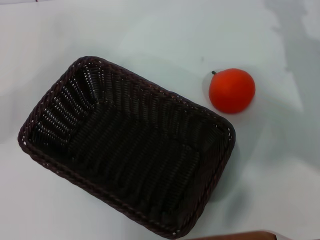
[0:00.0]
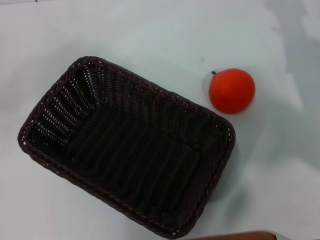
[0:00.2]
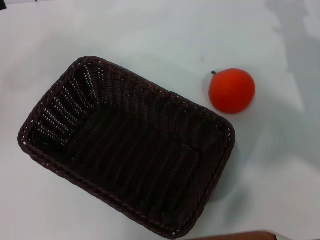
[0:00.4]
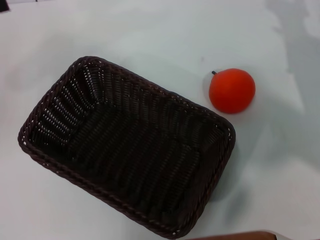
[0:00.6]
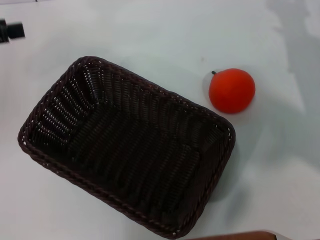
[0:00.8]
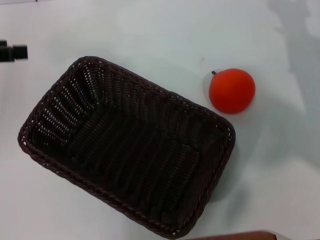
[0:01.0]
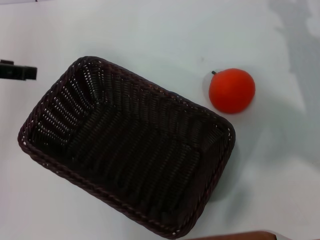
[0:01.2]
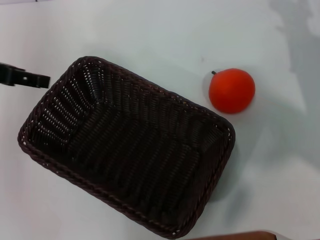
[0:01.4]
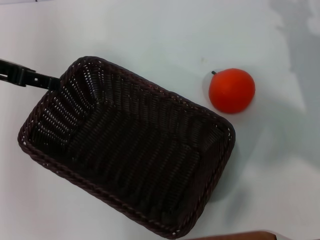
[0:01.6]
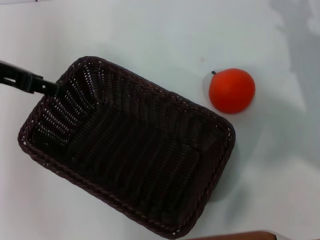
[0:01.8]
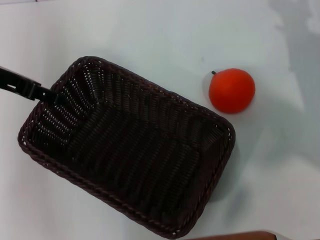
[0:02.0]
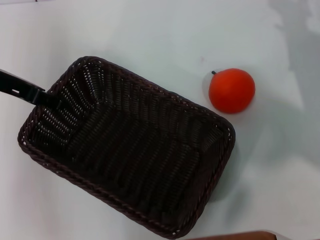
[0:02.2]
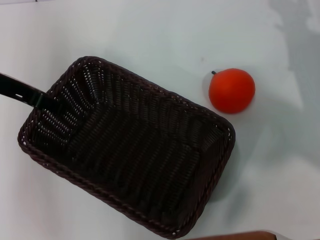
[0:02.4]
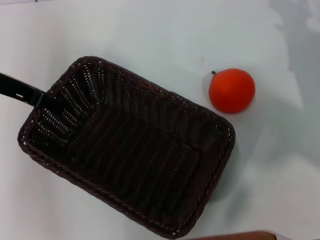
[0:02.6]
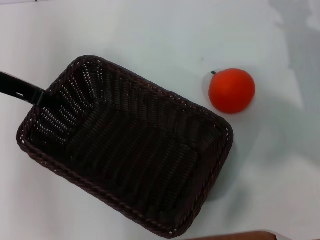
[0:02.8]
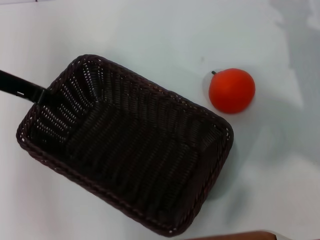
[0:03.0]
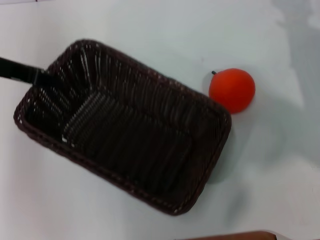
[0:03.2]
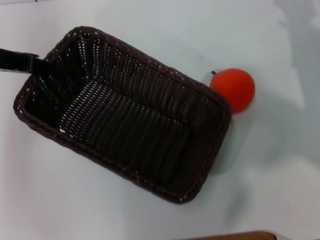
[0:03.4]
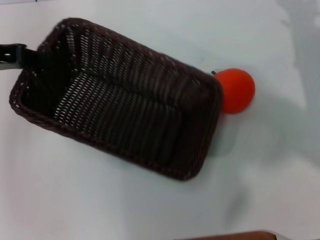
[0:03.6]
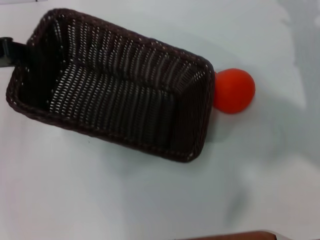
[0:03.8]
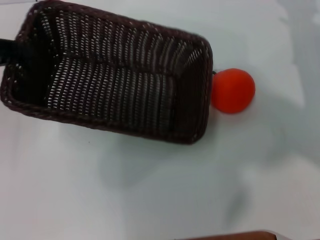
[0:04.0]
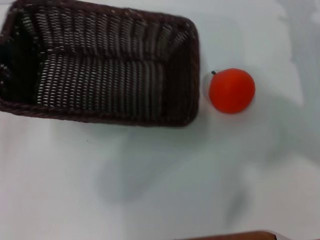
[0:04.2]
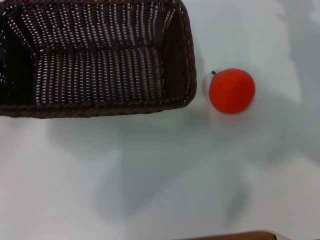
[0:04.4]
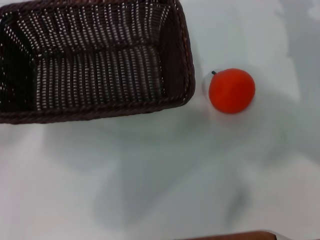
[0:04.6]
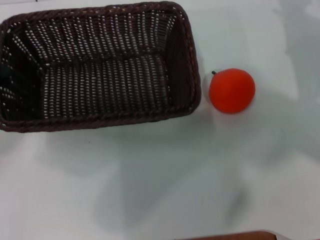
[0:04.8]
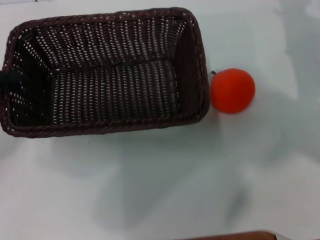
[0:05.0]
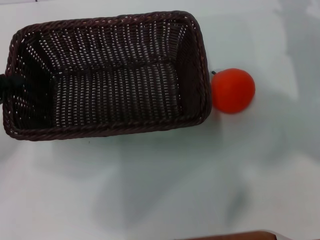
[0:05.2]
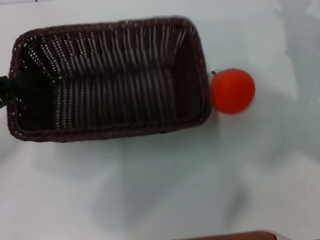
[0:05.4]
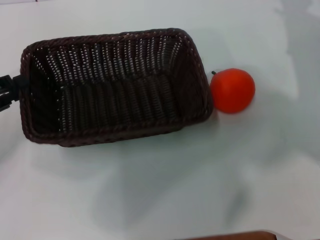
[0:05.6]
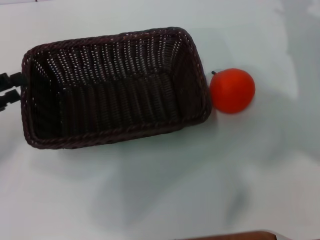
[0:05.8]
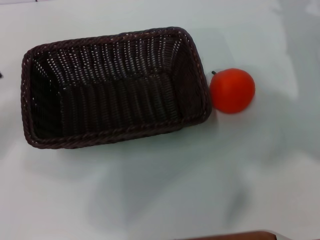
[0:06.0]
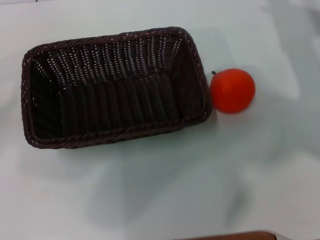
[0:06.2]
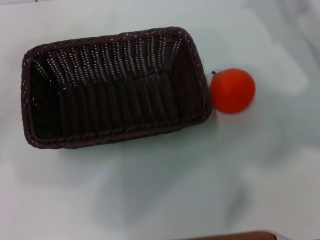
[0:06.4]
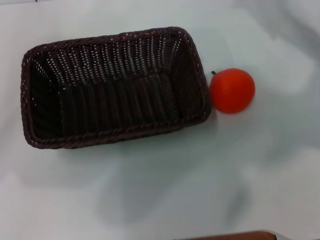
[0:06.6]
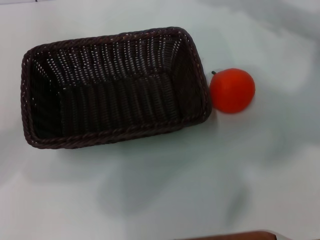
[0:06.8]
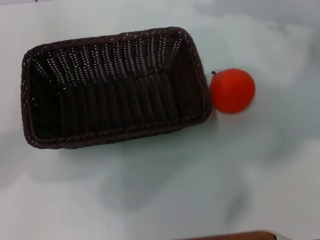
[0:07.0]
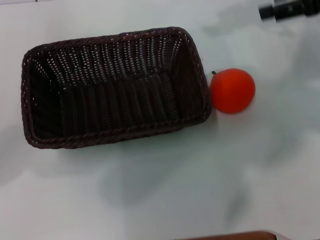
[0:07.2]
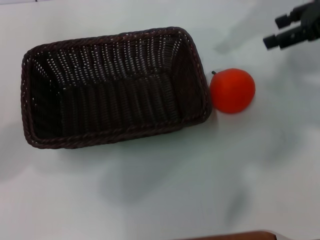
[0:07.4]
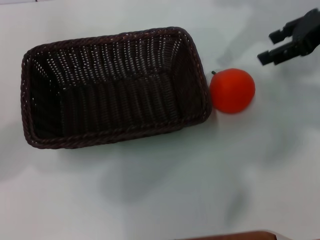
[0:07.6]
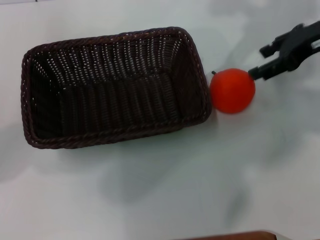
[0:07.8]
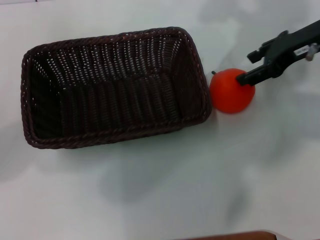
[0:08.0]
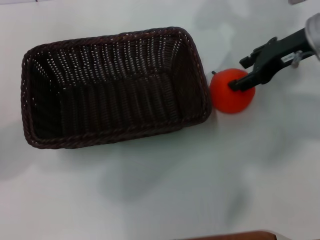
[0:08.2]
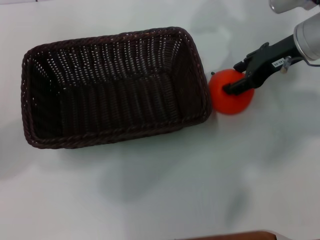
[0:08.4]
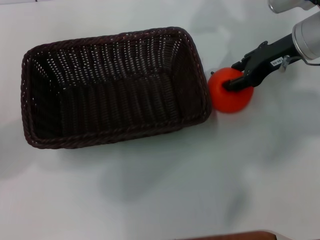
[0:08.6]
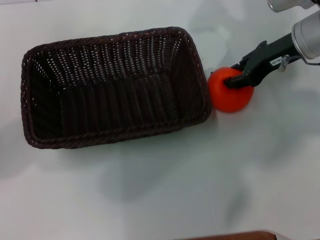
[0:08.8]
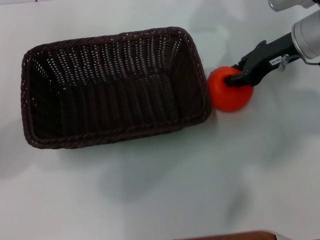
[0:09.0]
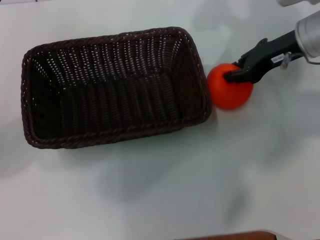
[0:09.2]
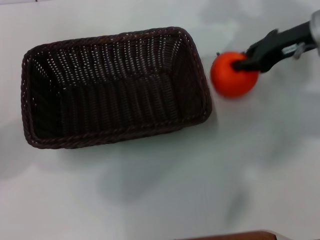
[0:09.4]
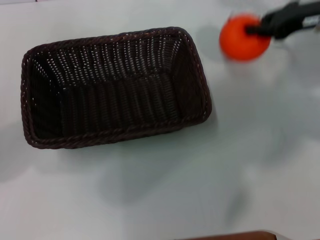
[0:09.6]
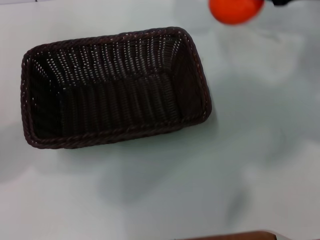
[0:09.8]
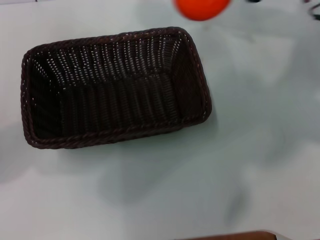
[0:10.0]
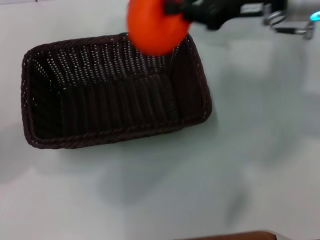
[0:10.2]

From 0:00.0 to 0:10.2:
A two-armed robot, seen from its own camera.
Task of the whole recording: the left gripper pick up the black basket and place it horizontally in the middle of the table, the right gripper pick up the orange and place it into the black basket.
Step, from 0:00.0 to 0:03.4: Pick up the dark basket with the left gripper.
Step, from 0:03.6 to 0:05.8: Place the dark basket in the center of view with the left gripper.
Step, from 0:06.0 to 0:09.4: Pick up the orange with the right gripper.
From 0:00.0 to 0:01.4: The left gripper moves to the right, approximately 5 cm.
From 0:01.4 to 0:03.0: The left gripper closes up.
From 0:03.0 to 0:04.4: The left gripper moves to the left and backward, roughly 15 cm.
From 0:04.4 to 0:05.8: The left gripper changes place by about 5 cm, and opens.
From 0:05.8 to 0:07.2: The left gripper ends up some 5 cm from where it was, while the right gripper goes some 15 cm upward.
From 0:07.2 to 0:08.8: The right gripper shifts about 10 cm downward and to the left.
From 0:08.8 to 0:10.2: The right gripper travels to the right and back again, approximately 5 cm each way, and closes.

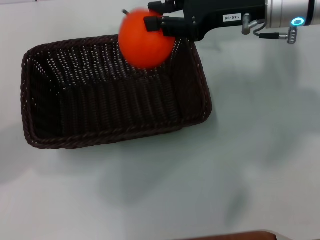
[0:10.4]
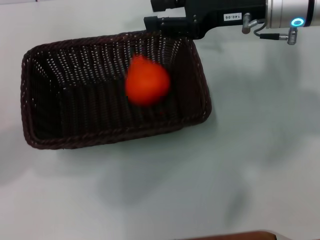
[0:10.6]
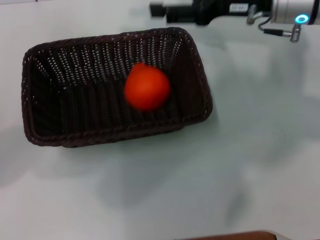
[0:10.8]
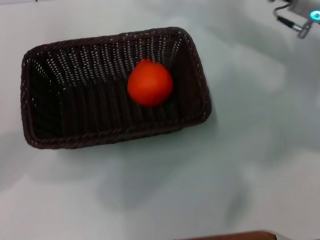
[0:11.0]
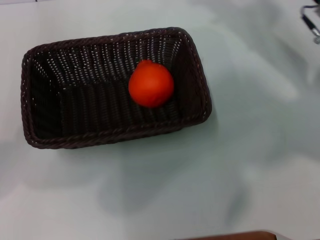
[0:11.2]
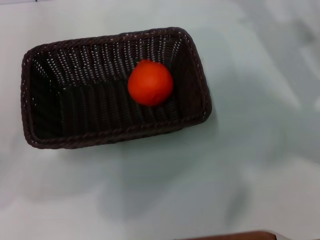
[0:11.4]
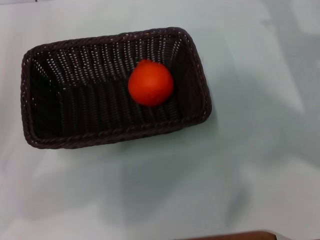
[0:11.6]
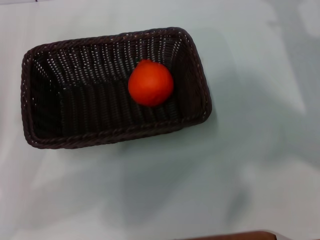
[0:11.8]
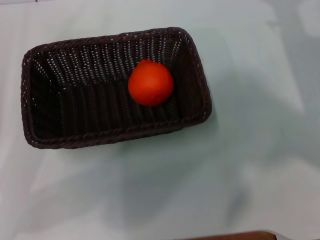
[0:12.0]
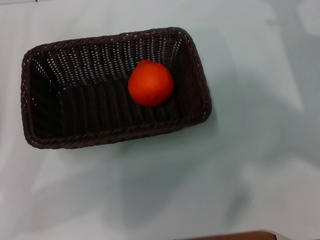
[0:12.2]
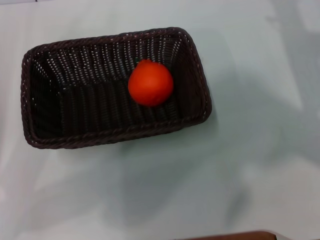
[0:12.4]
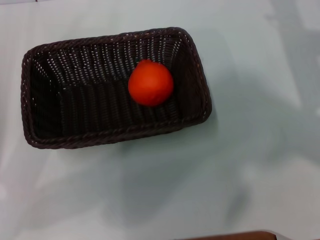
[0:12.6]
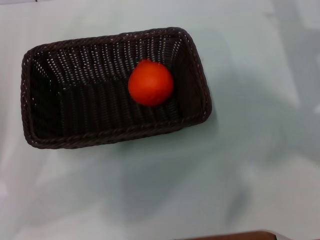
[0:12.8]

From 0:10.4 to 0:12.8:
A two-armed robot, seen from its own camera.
Task of the whole recording: the left gripper pick up the black basket and place it horizontally in the middle of the table, the right gripper pick up the orange and place it into the black basket.
From 0:10.4 to 0:11.6: The left gripper shifts by approximately 5 cm; the right gripper goes about 15 cm to the right, downward and backward, and opens its fingers.

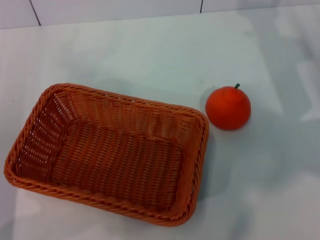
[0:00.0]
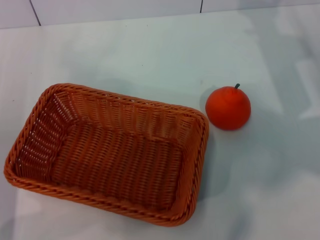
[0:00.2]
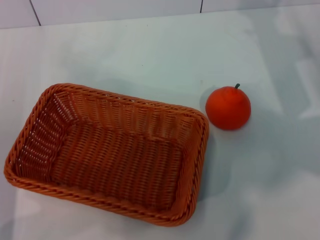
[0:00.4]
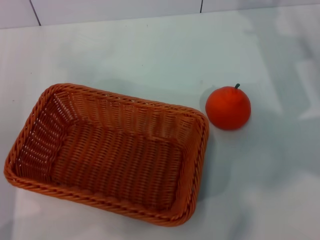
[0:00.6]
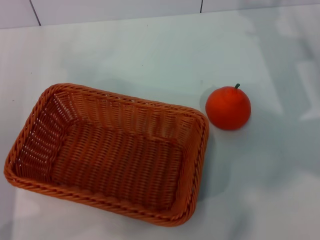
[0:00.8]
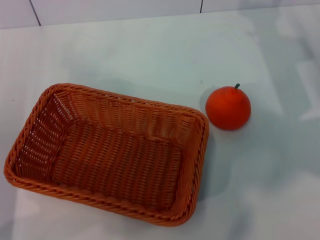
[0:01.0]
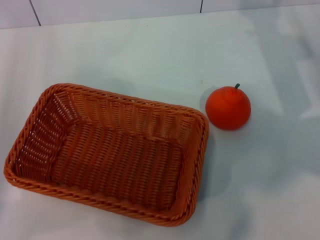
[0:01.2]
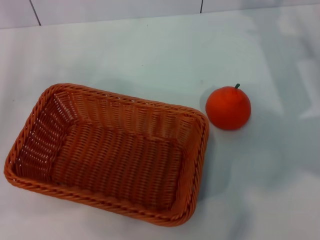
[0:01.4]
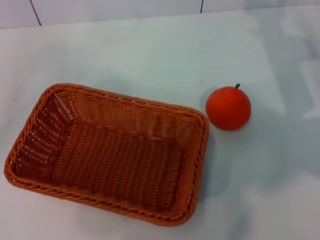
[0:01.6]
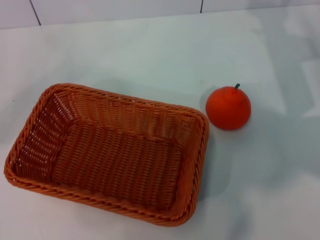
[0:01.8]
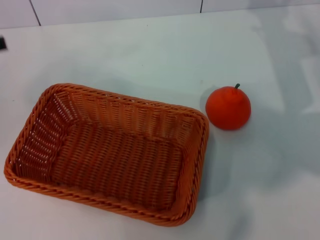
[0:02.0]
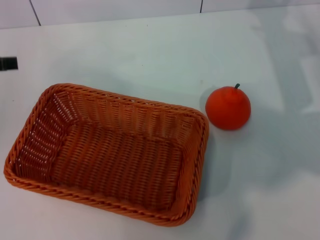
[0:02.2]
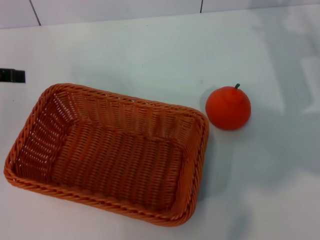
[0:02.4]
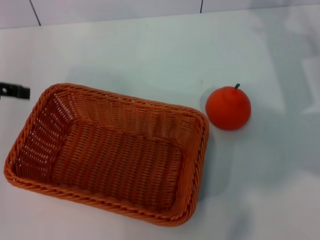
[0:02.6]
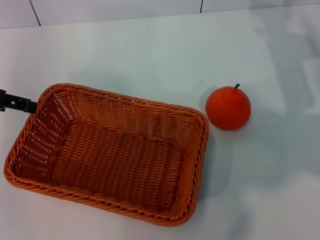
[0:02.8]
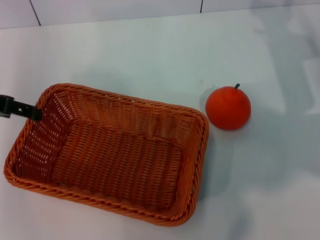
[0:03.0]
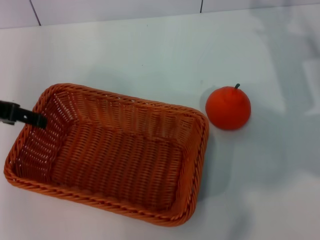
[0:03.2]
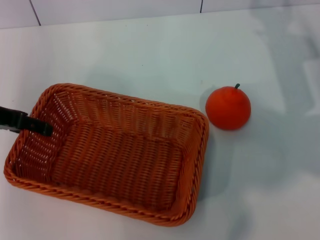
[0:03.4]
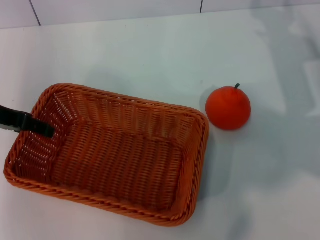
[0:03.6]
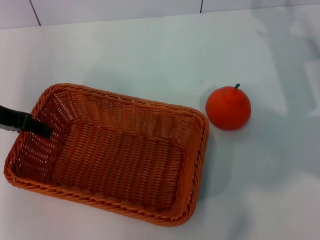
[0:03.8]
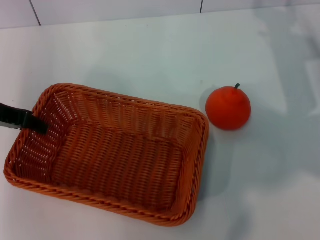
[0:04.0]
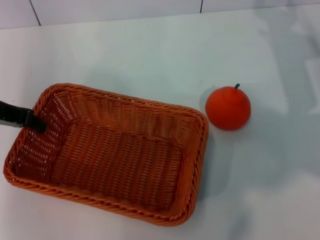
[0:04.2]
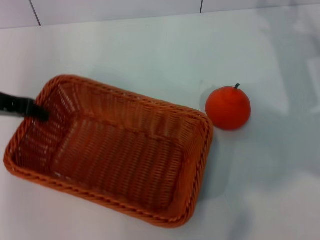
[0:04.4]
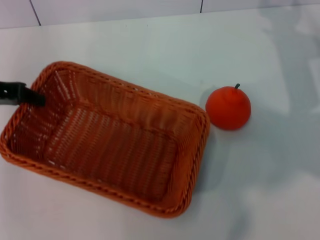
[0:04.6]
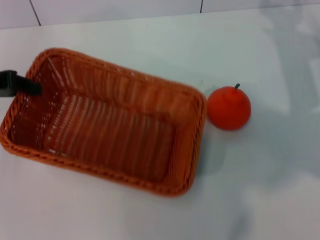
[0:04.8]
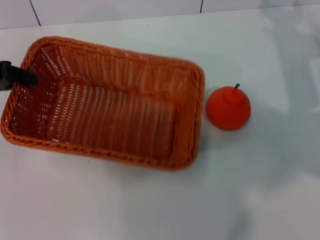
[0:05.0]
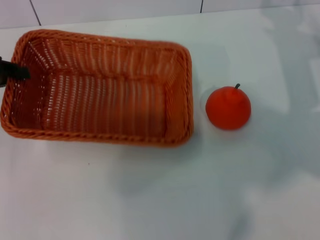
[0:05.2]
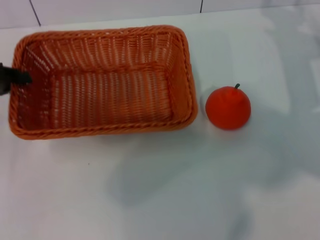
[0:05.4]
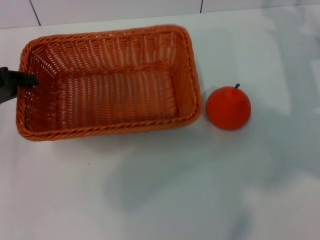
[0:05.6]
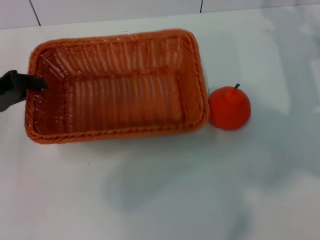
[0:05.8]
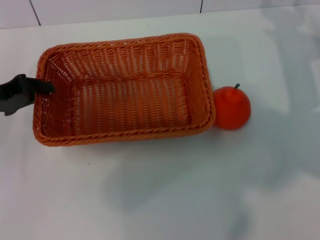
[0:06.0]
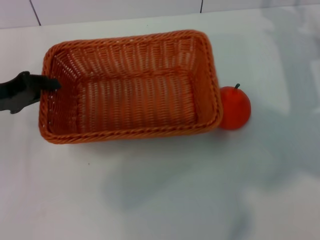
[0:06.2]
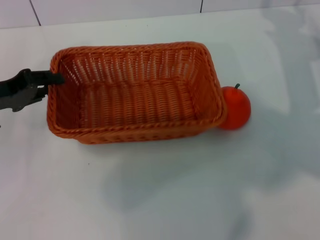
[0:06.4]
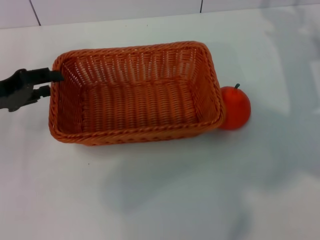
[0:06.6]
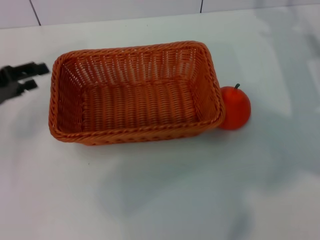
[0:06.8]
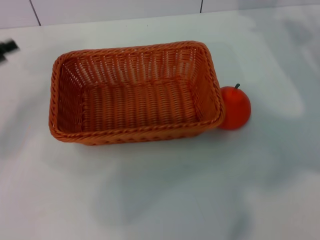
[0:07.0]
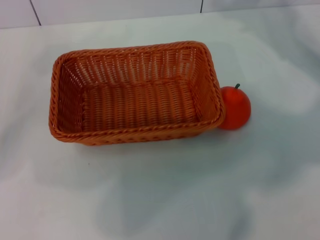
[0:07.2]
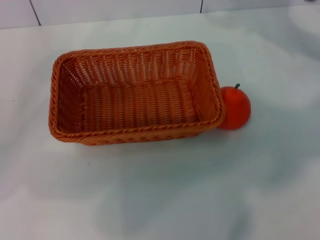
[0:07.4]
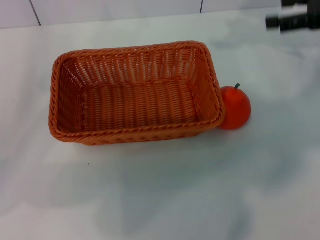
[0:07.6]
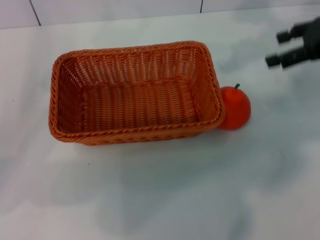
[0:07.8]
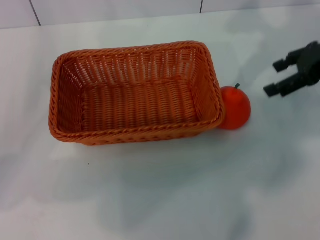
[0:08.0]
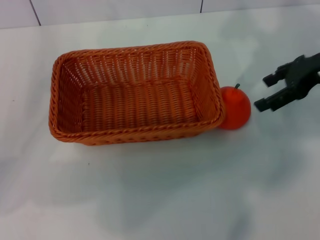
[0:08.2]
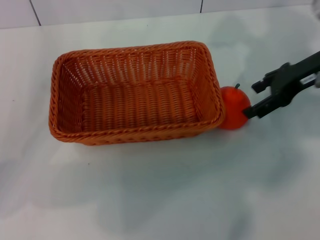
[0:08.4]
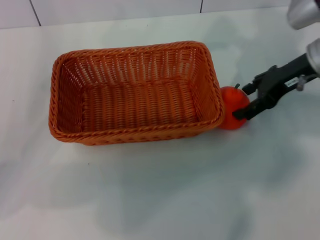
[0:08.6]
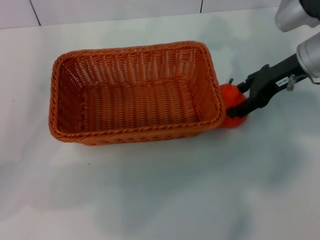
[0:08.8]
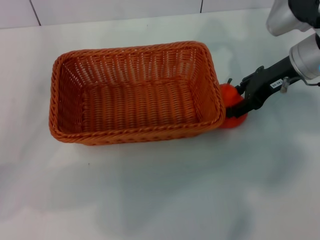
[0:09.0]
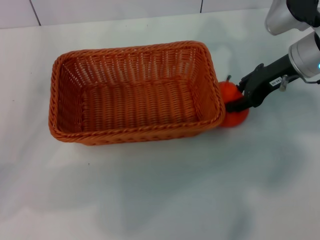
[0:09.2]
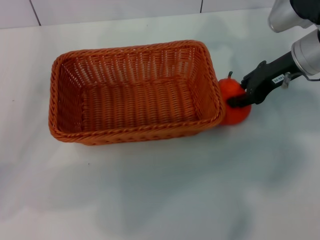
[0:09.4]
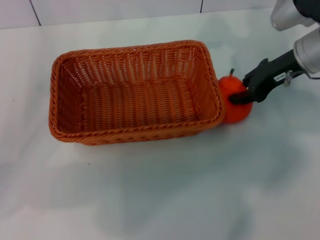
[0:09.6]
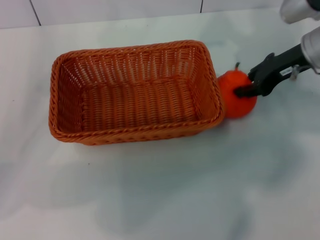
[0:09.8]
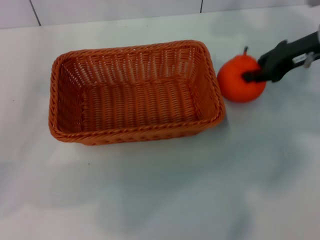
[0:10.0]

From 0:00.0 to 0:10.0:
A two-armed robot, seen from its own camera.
Task of the whole recording: the left gripper pick up the yellow basket and place it horizontally in the middle of the table, the right gripper pick up the orange and place it into the yellow basket.
Step, from 0:00.0 to 0:04.4: Pick up the light basket with the left gripper.
Step, from 0:04.6 to 0:06.6: Place the light basket in the center of view with the left gripper.
From 0:00.0 to 0:01.4: The left gripper moves to the left, approximately 5 cm.
From 0:01.4 to 0:02.8: The left gripper shifts approximately 10 cm upward and forward.
From 0:02.8 to 0:04.2: The left gripper closes its fingers.
From 0:04.2 to 0:05.8: The left gripper changes place by roughly 5 cm.
From 0:05.8 to 0:07.2: The right gripper shifts approximately 5 cm upward. The left gripper opens its fingers.
From 0:07.2 to 0:08.6: The right gripper heads to the left, covering about 5 cm.
From 0:08.6 to 0:10.0: The right gripper closes.
